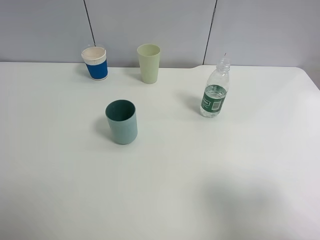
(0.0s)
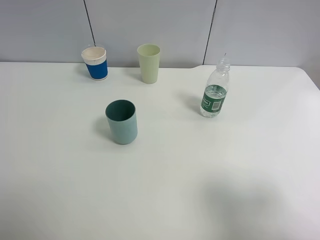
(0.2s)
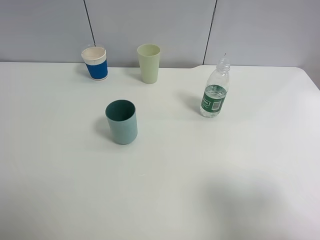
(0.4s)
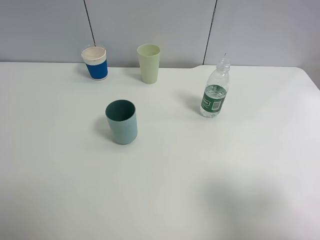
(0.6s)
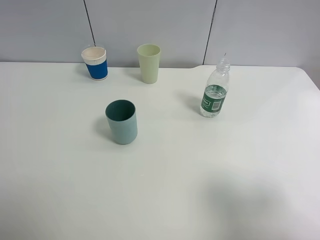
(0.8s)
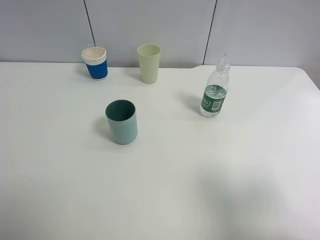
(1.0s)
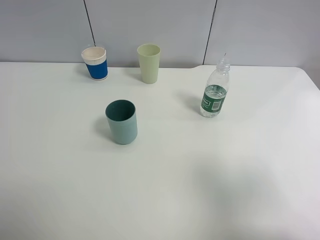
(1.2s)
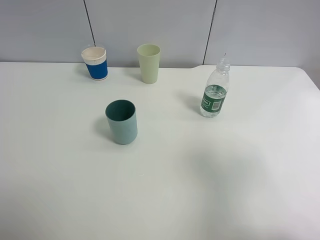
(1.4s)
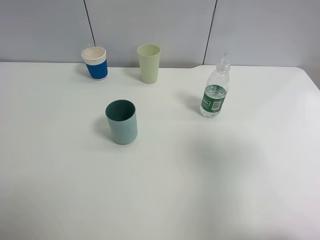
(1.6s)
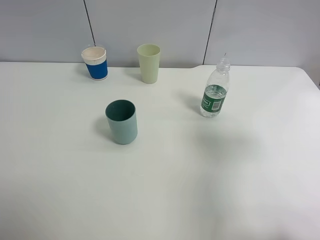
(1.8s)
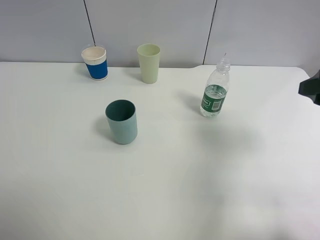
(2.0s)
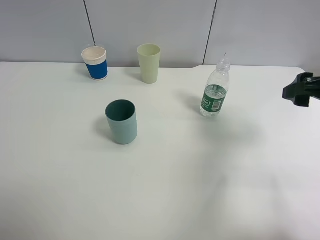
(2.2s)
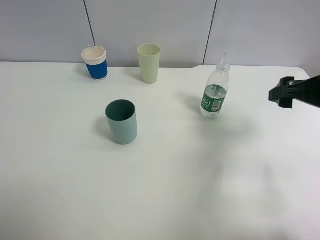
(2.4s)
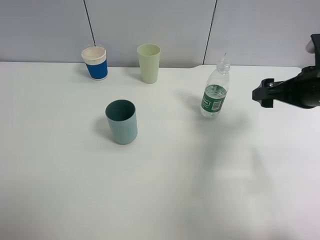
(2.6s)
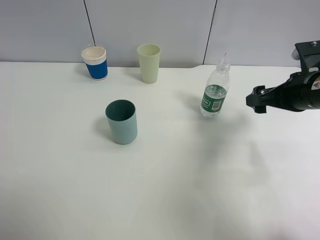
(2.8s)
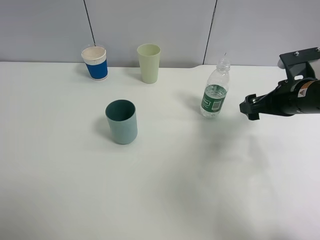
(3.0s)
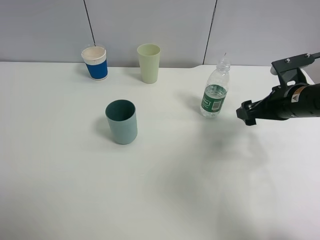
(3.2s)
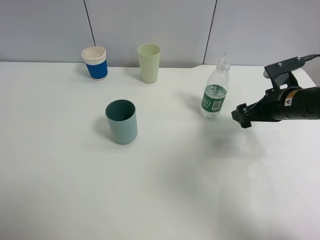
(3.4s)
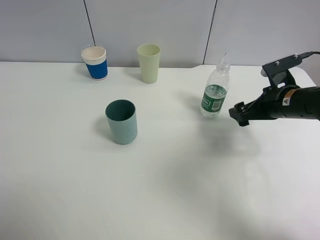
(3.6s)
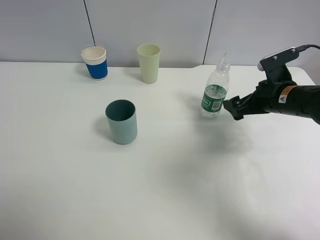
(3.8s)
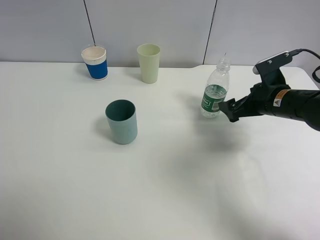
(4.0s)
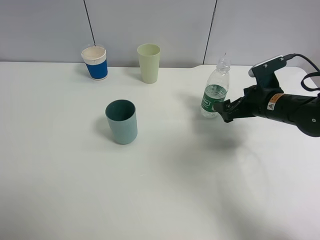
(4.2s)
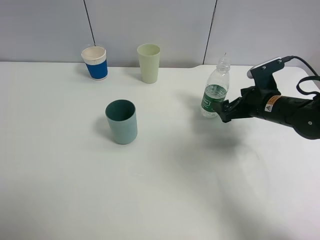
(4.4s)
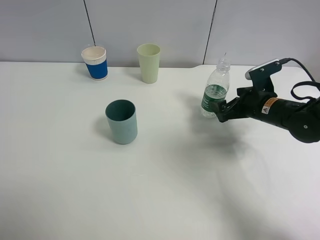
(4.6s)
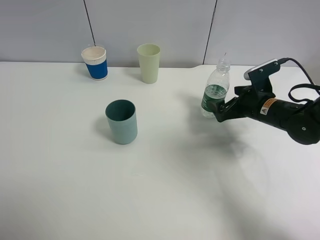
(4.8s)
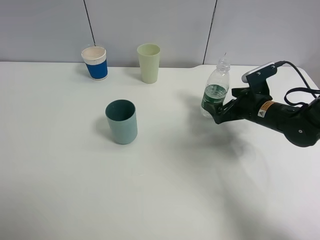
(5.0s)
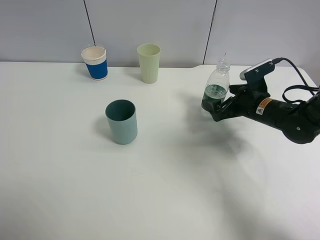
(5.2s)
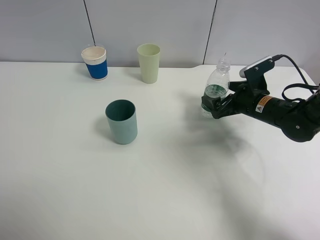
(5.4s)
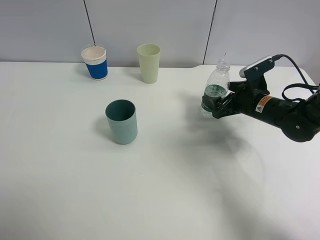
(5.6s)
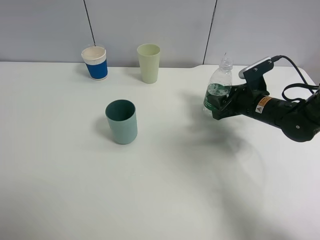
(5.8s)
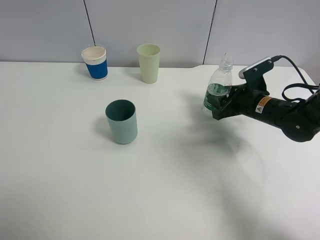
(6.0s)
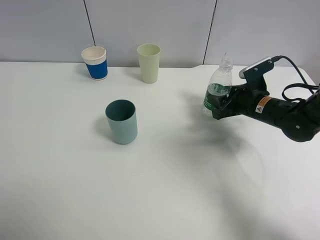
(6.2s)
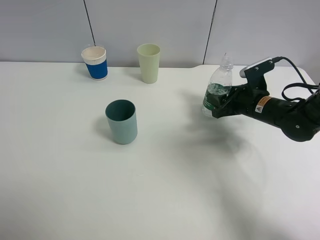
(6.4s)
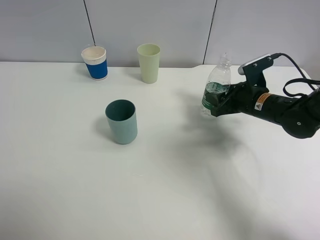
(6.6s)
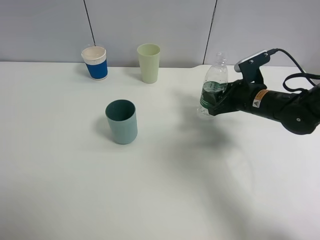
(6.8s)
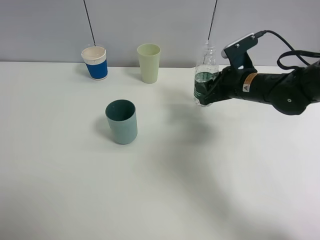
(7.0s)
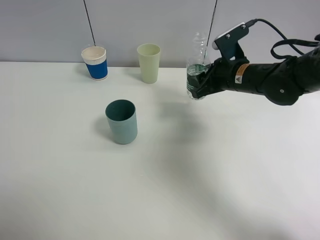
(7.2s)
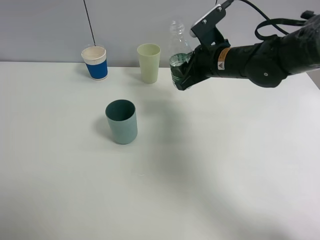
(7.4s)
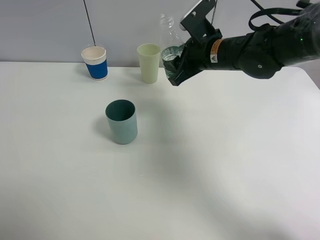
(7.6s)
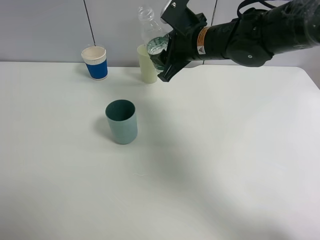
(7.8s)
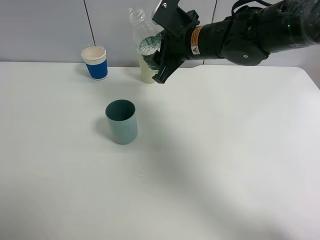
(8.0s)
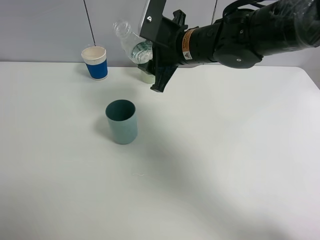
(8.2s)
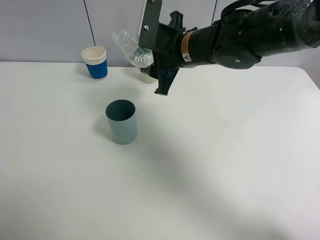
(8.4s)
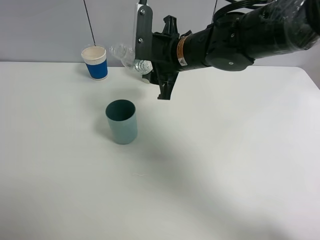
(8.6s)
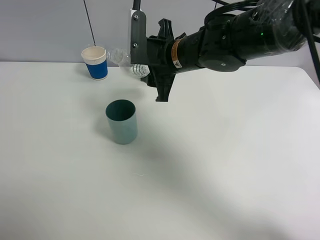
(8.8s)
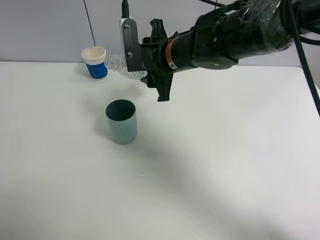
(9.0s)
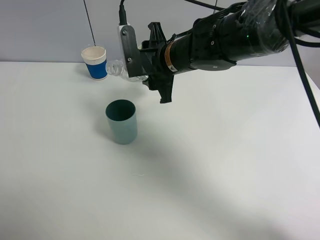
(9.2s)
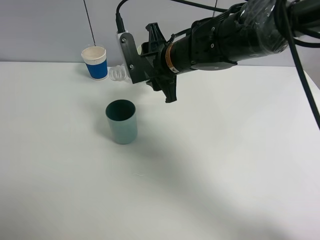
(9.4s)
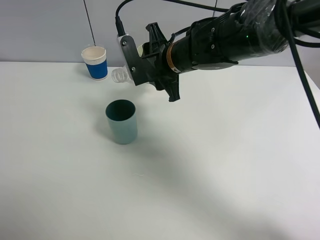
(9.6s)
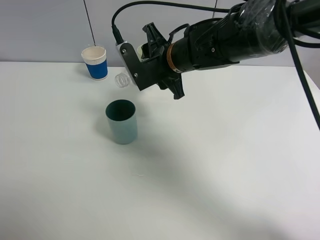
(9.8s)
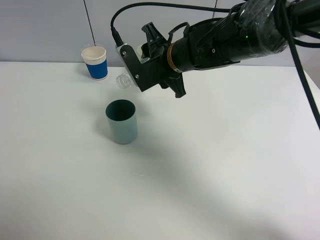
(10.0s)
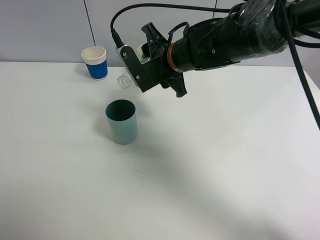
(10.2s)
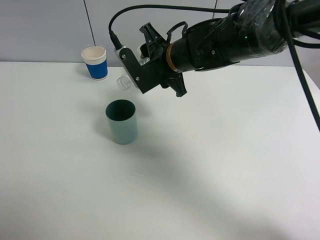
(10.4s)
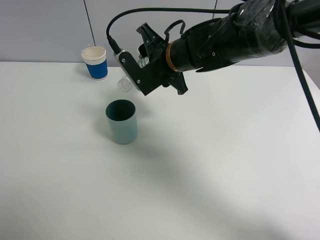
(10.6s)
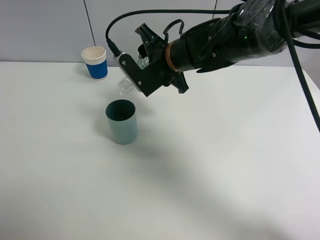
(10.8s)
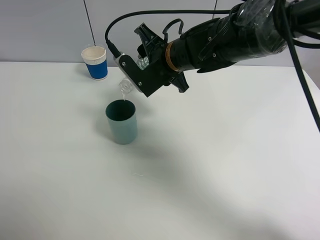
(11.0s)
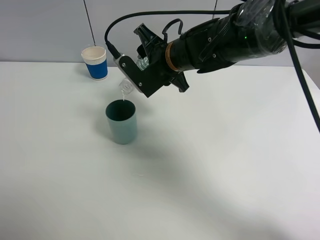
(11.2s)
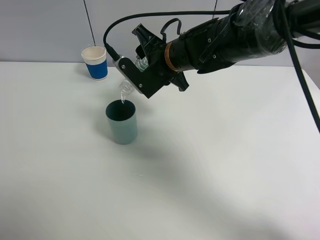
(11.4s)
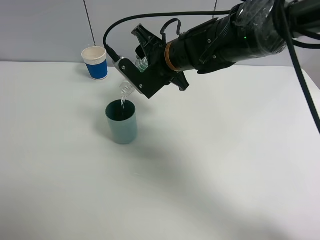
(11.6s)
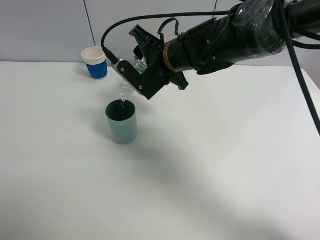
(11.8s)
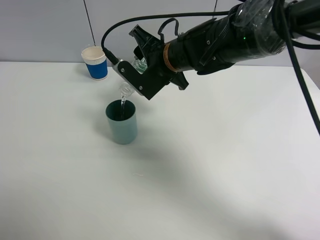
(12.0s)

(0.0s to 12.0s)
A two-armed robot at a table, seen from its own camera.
Task of the whole recording: use a clamp to hold the bottle of the drink, pour the beverage into a random cup, then clamp the cup containing the drink and pour the drink into another random cup.
Step, 0.0s - 7.6s: Pick up the water bottle with right gripper.
0.0s - 1.6s: The right gripper shifts about 10 cm forward.
1.6s - 3.0s: The right gripper heads forward and downward, covering roughly 25 cm.
3.0s - 4.4s: The right gripper travels downward by about 5 cm.
4.4s - 6.0s: The right gripper closes up.
6.0s - 7.6s: The right gripper travels to the left and upward by roughly 15 cm.
7.6s - 9.0s: The right gripper is displaced to the left by some 10 cm.
10.4s - 12.0s: The grippers make only small movements.

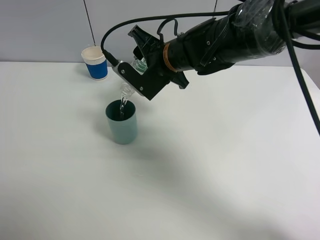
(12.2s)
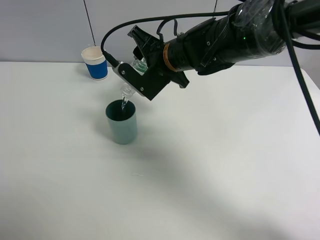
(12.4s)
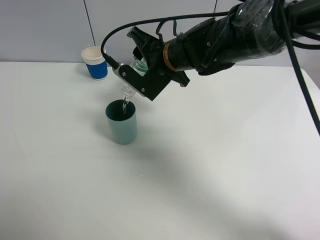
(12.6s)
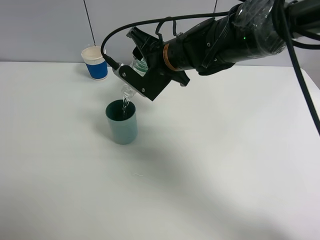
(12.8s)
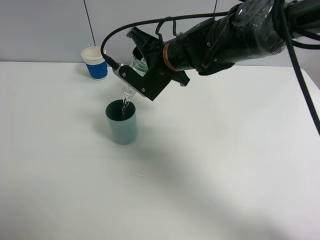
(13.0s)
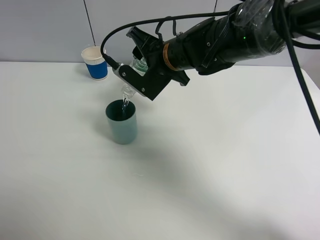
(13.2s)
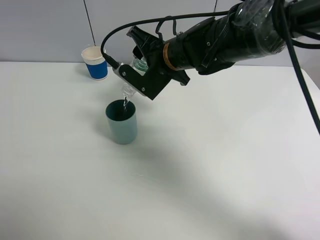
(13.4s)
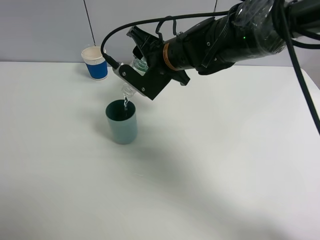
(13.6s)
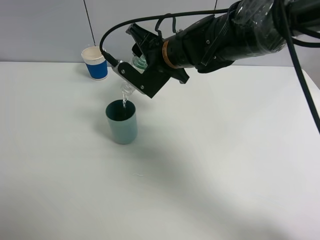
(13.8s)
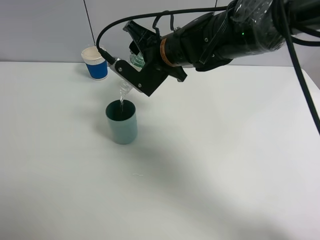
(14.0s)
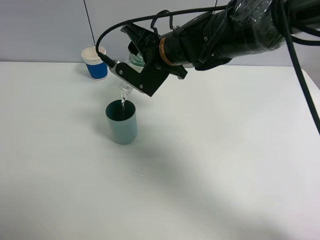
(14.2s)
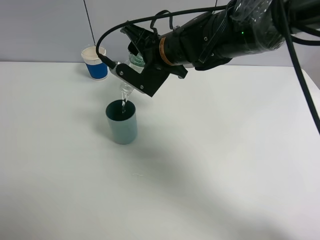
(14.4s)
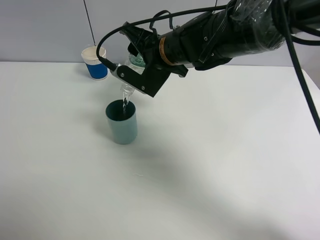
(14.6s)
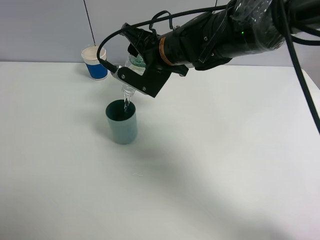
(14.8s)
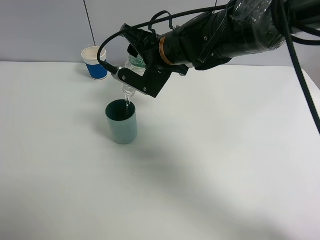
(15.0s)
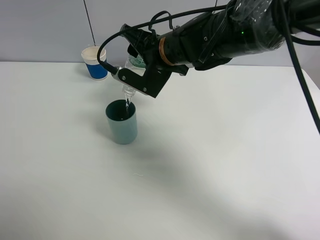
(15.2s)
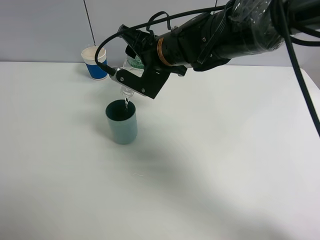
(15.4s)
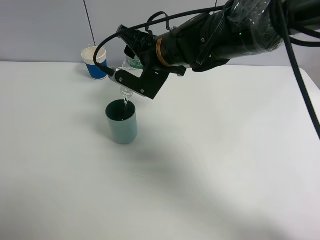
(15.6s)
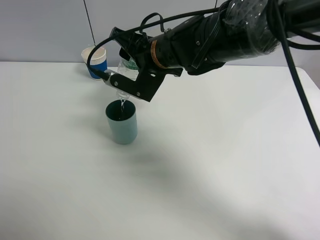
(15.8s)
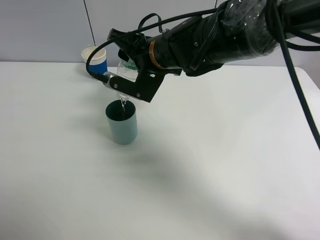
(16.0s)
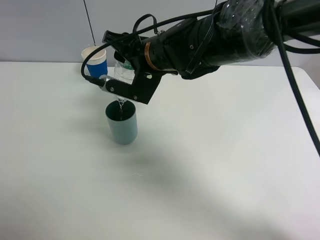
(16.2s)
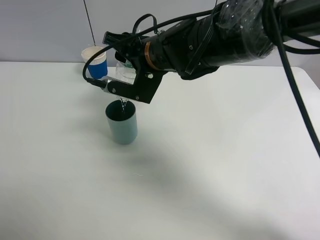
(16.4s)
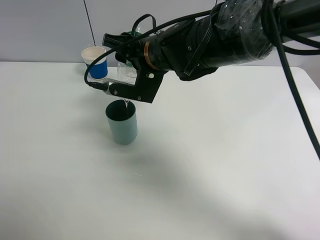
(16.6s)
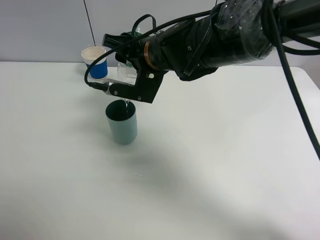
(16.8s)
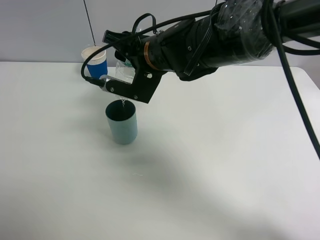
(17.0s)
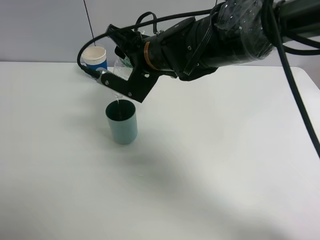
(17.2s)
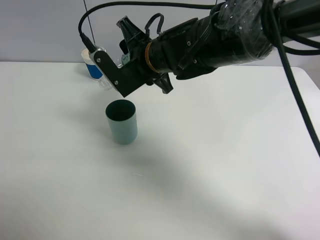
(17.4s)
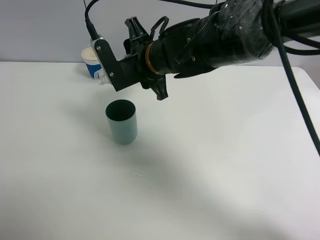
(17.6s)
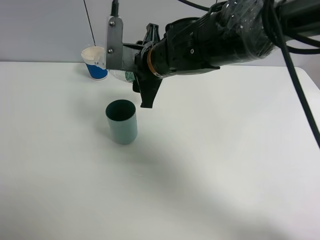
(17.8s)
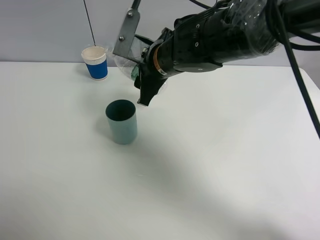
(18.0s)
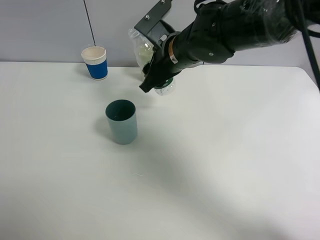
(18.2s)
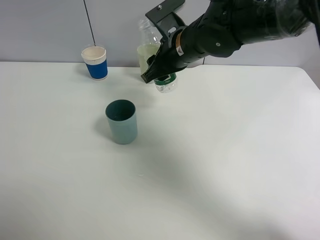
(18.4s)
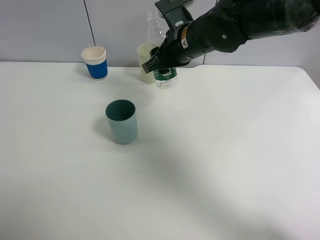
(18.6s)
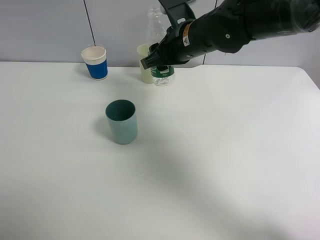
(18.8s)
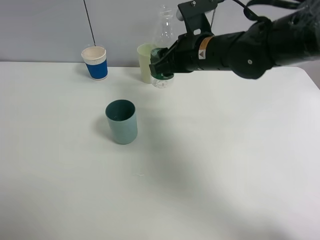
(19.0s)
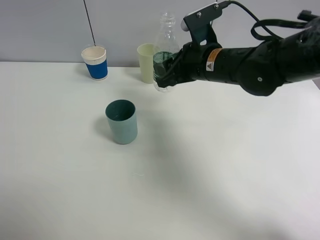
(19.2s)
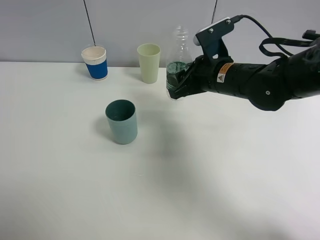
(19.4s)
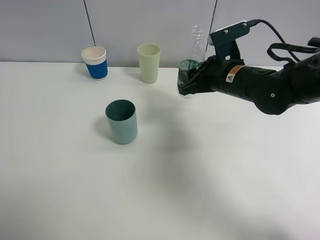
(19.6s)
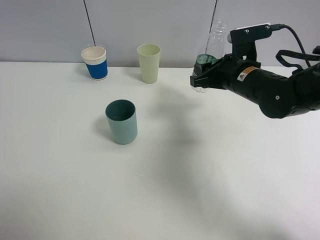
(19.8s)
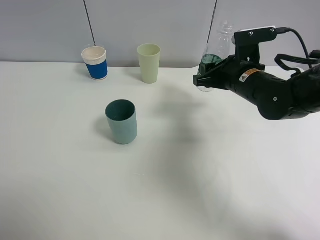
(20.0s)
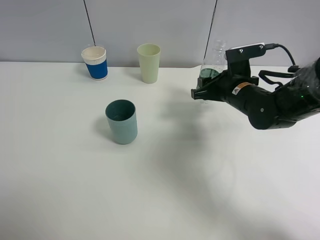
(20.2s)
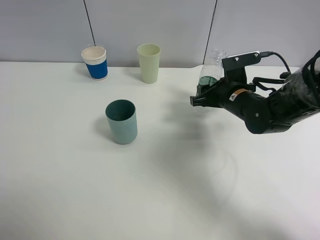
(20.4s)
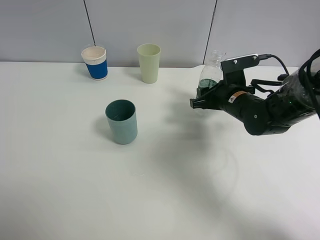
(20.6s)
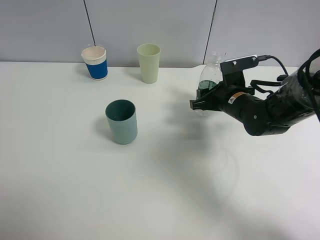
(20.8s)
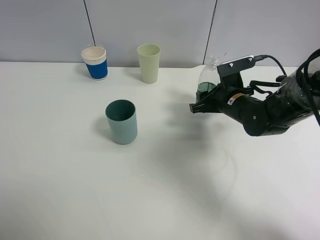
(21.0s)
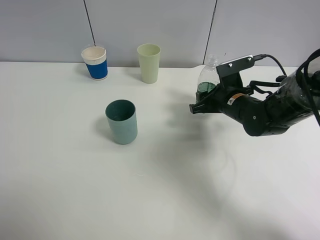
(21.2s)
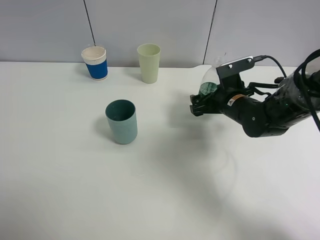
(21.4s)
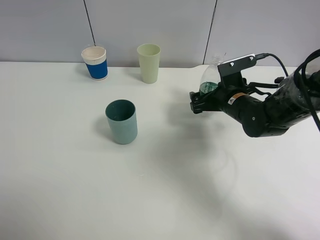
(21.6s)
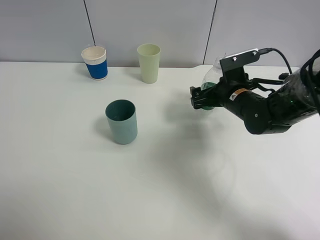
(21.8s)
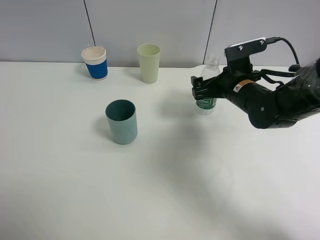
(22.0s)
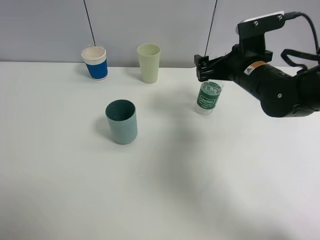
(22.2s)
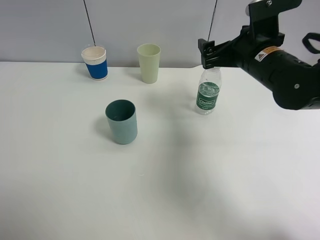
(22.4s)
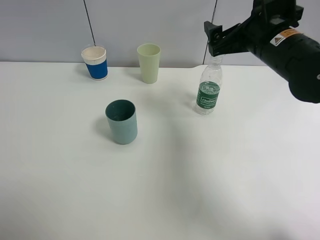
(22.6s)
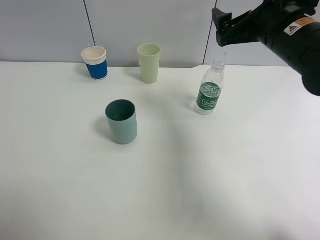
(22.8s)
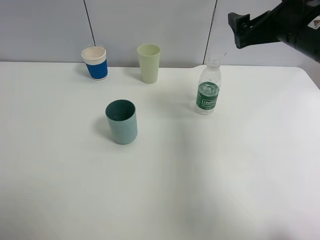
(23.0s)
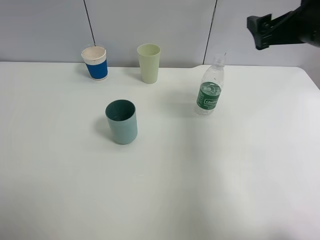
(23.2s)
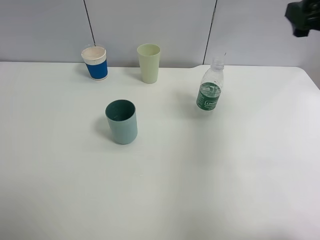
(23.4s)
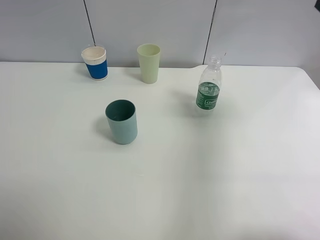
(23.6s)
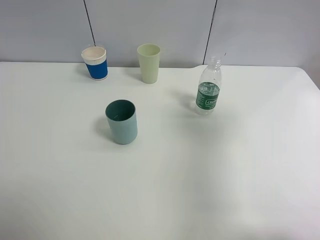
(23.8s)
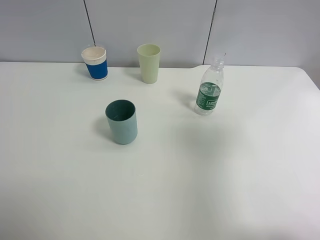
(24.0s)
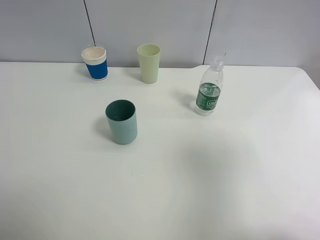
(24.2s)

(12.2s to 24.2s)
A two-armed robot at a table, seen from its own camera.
Task of the whole recording: use a clamp to hold the bottle of the drink, pour the beverage into a random cup, then clamp the cup containing the drink and pour the drink into another random cup.
Step, 12.2s - 17.6s: Pour water into the blue plastic cup with right gripper.
Step, 17.8s - 22.0s: Place the water bottle on the table with right gripper.
12.2s - 13.8s: Both grippers stay put.
13.8s - 15.2s: The grippers make only small movements.
15.2s - 16.6s: The grippers make only small movements.
18.2s - 19.8s: The right gripper shifts some 15 cm to the right.
19.8s - 21.2s: The right gripper is displaced downward by approximately 5 cm.
21.2s - 22.6s: The right gripper is displaced upward by approximately 15 cm, and opens.
22.6s - 24.2s: The right gripper heads backward and to the right, covering about 25 cm.
